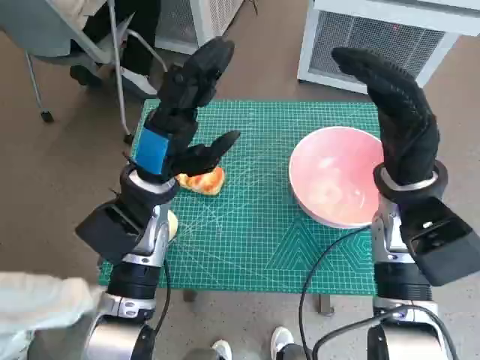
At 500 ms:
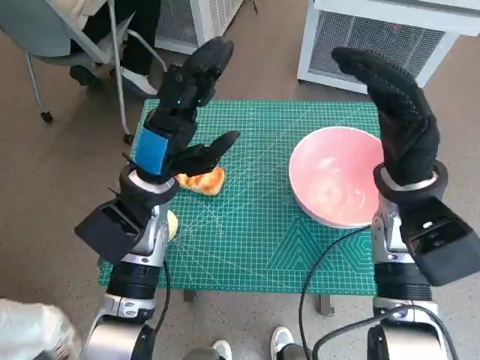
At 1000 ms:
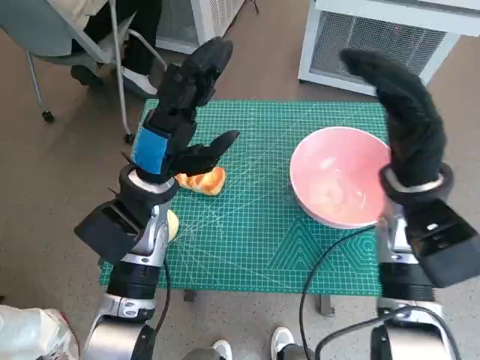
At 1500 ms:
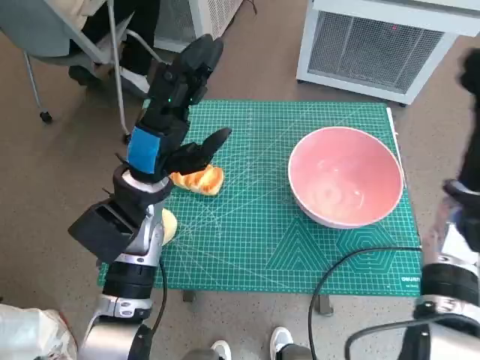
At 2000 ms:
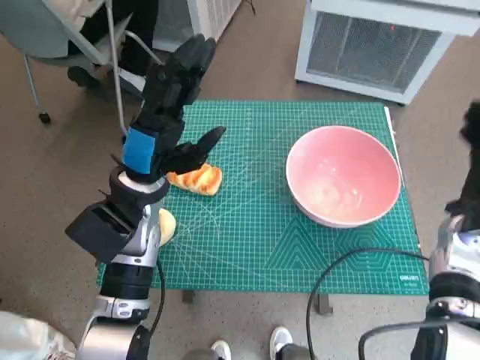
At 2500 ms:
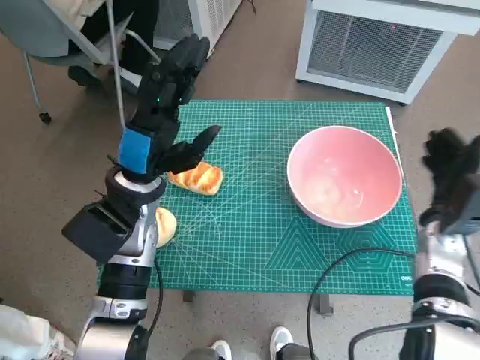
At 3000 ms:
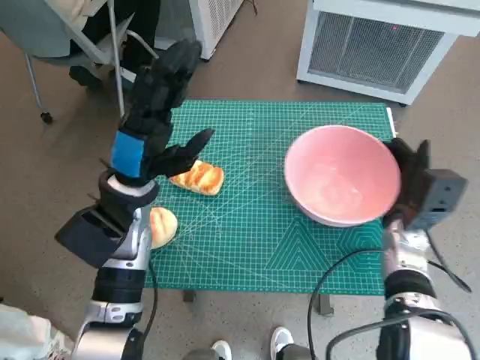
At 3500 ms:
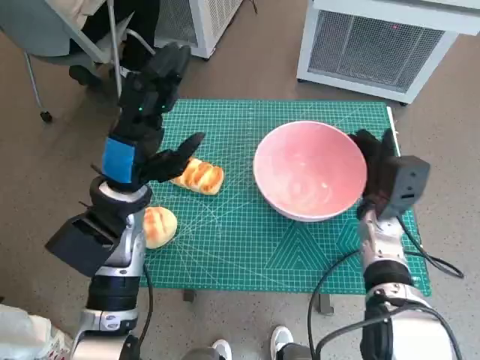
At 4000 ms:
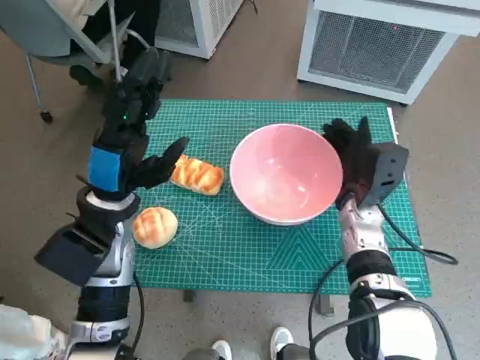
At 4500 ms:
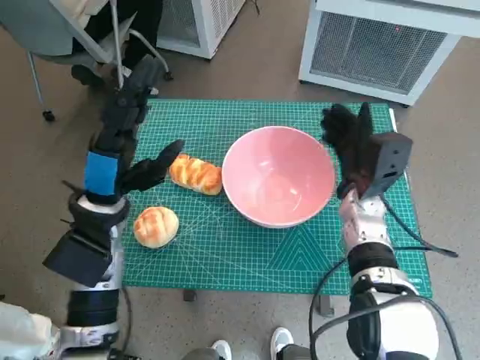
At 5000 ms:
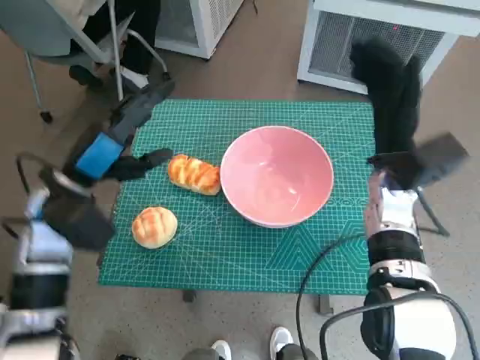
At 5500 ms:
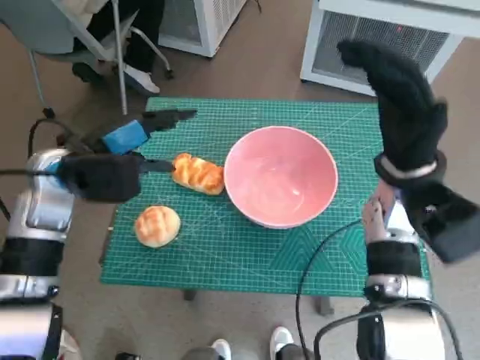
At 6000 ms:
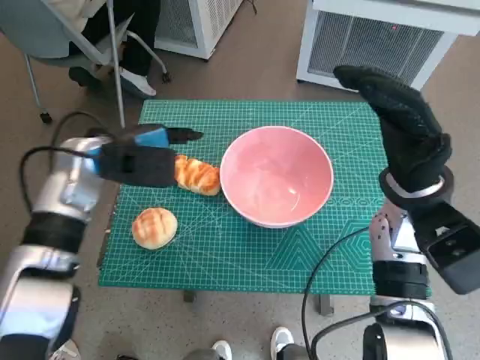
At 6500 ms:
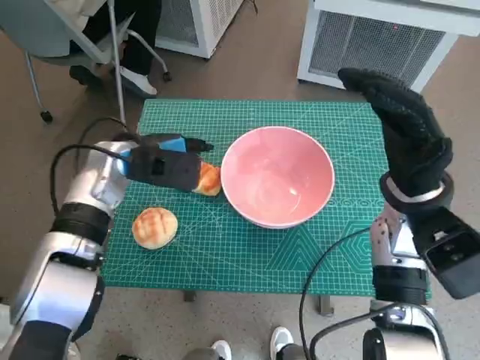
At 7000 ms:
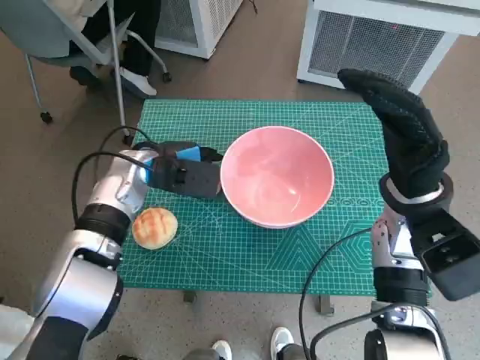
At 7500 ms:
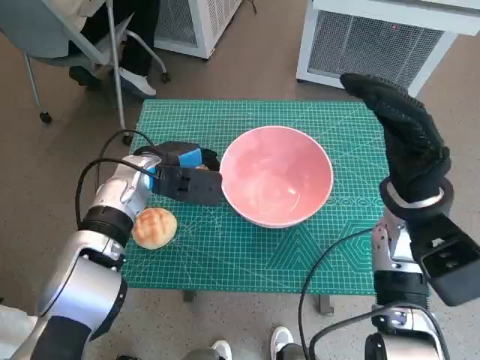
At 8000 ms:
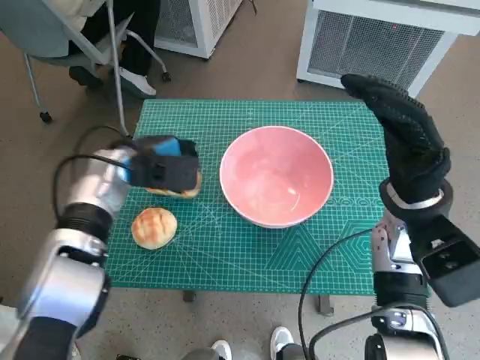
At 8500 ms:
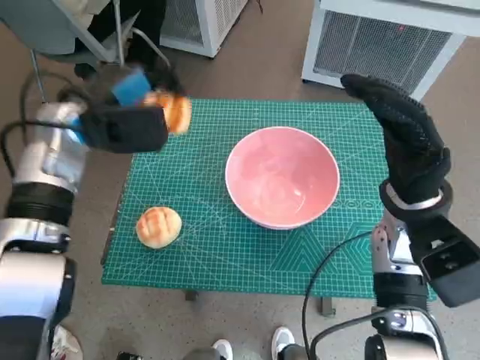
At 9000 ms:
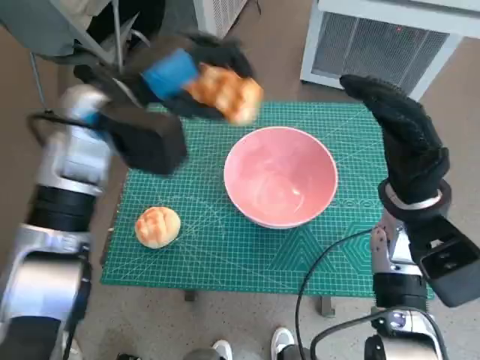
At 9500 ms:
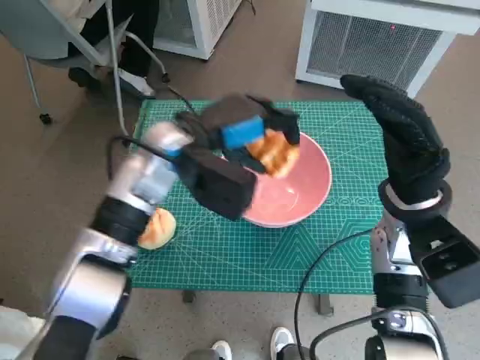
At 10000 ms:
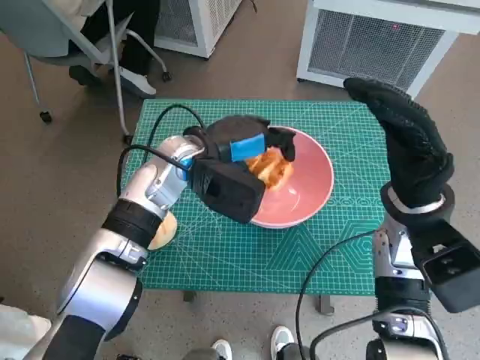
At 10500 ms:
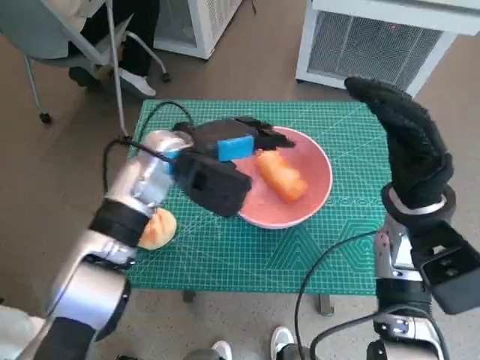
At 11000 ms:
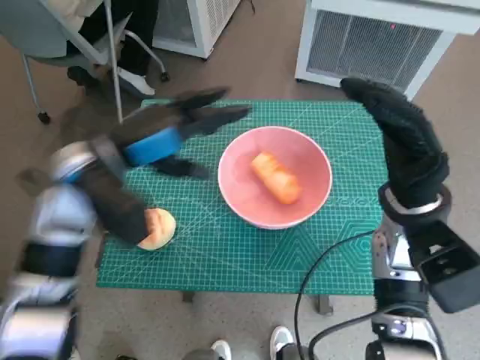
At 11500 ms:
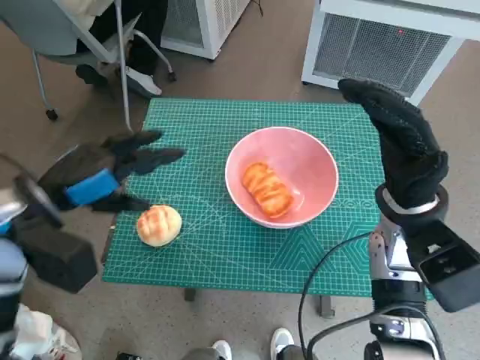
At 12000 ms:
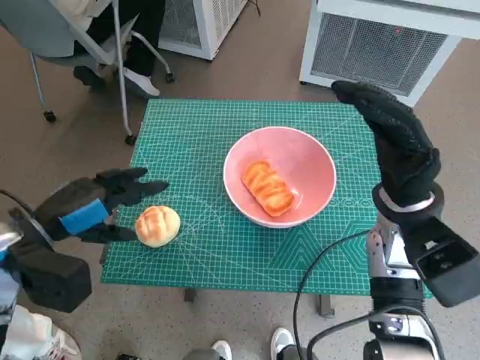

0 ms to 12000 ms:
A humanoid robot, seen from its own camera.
Task of the whole recording: Push the bowl to the center of the table and put the bread into the bowl.
Step, 0 ms to 4500 ms: Move the pink bowl to the center of table with right hand.
Step, 5000 ms to 7500 ms: Grasp the long bread with left hand.
Step, 8000 ms to 10000 ms: Place the long bread in pink bowl with left hand.
2000 ms to 4000 ms: The right hand is displaced to the left by some 15 cm.
4000 ms to 6000 ms: The left hand shifts roughly 5 cm forward. Meanwhile the right hand moves upward, about 10 cm.
6000 ms to 8000 ms: The left hand shifts by about 5 cm.
8000 ms to 10000 ms: The left hand goes some 10 cm to the right, and moves some 15 cm upward and comes back.
10000 ms to 12000 ms: The left hand is displaced to the left and backward by some 20 cm.

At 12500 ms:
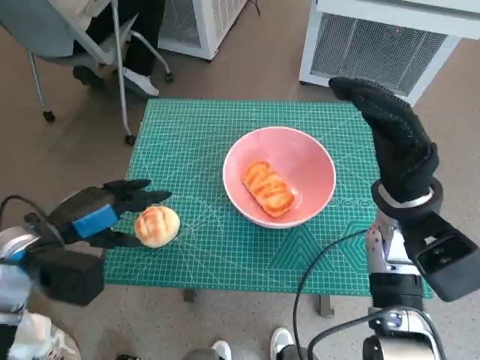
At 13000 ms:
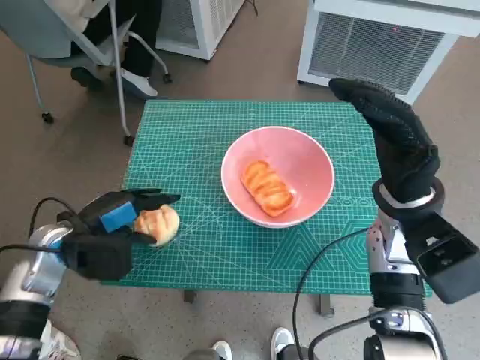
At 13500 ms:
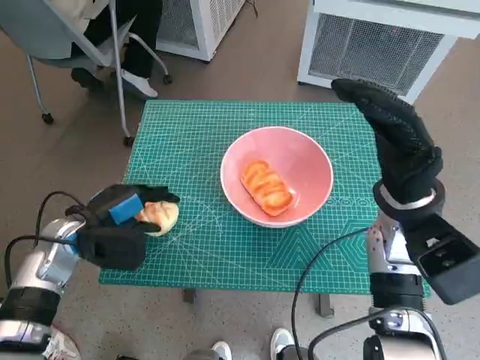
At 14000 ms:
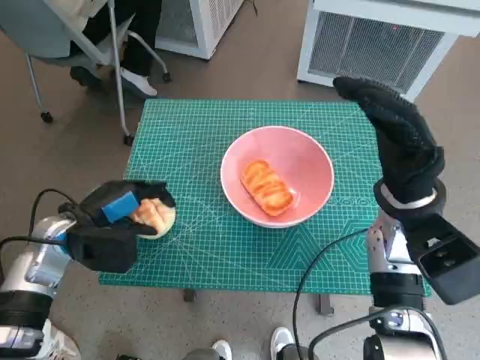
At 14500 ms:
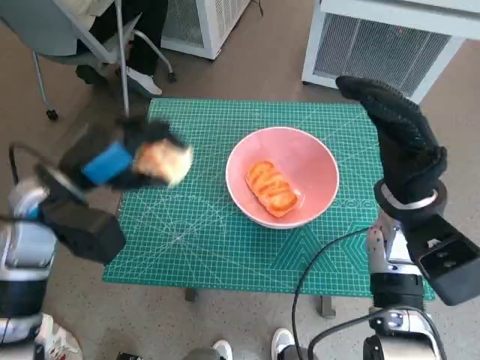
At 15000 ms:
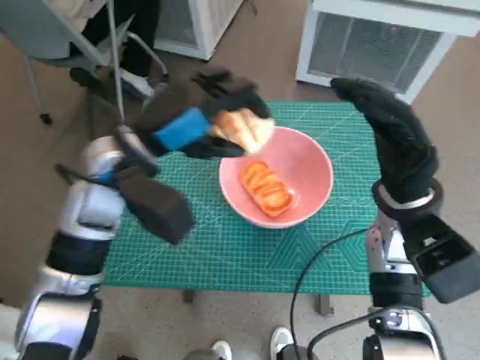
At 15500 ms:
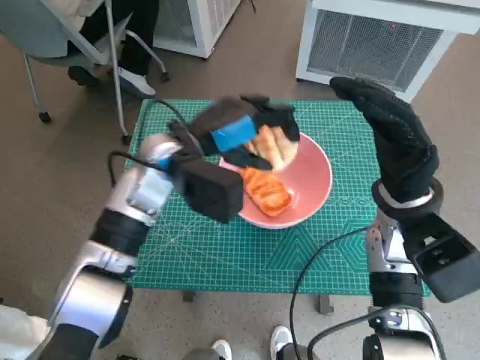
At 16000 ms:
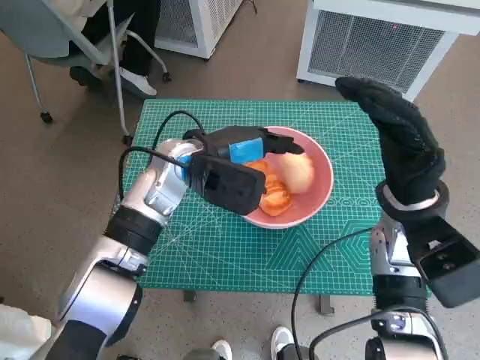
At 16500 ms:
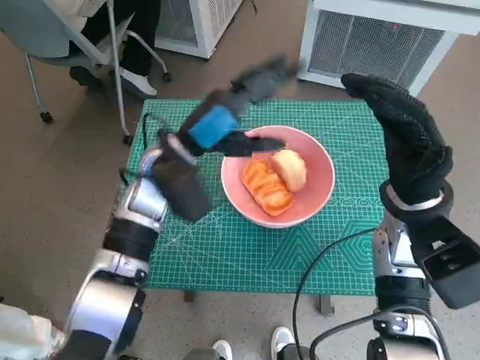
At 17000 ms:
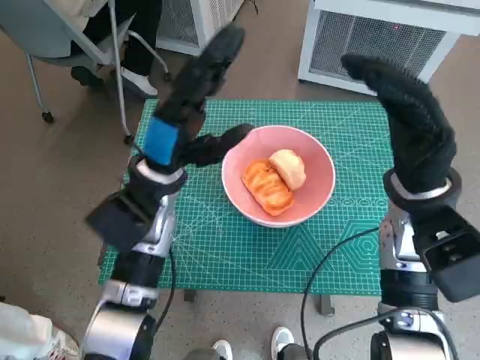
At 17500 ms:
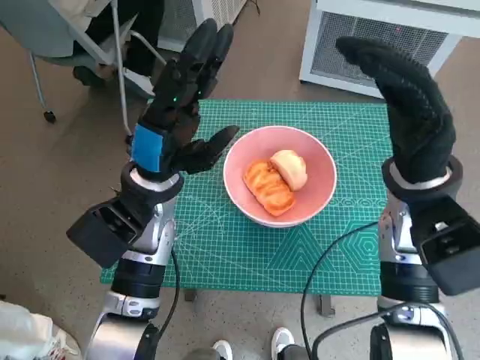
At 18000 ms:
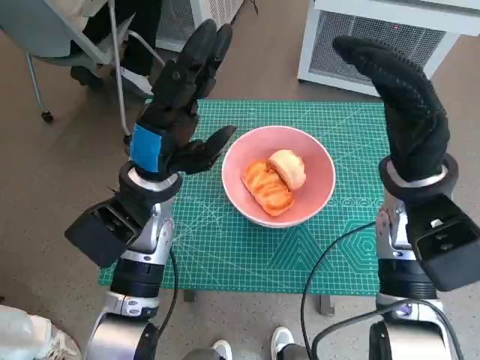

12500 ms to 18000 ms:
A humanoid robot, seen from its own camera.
Task of the whole recording: Push the bowl to the center of the table and put the bread into the bowl.
Step, 14000 ms to 16000 ms: Place the round bread in pink bowl with left hand.
12500 ms to 14500 ms: The left hand changes place by about 5 cm.
14500 ms to 16000 ms: The left hand moves to the right and forward, roughly 15 cm.
16000 ms to 18000 ms: The left hand heads backward, covering roughly 5 cm.

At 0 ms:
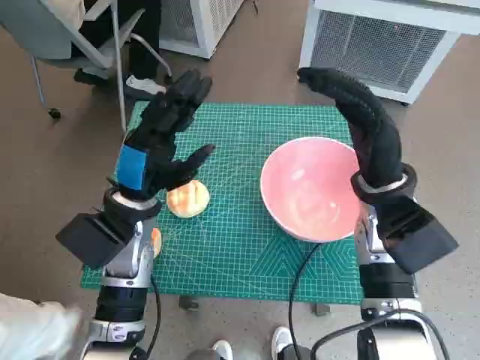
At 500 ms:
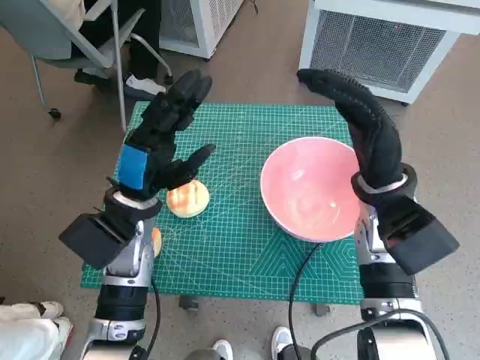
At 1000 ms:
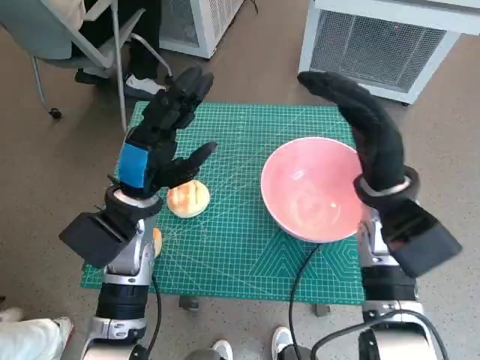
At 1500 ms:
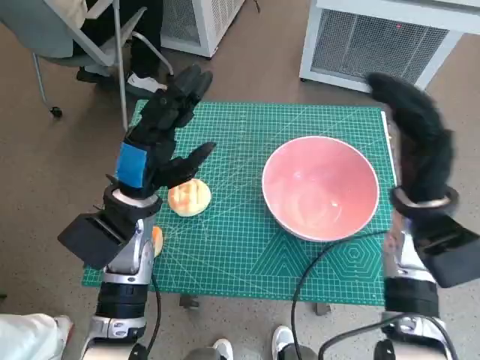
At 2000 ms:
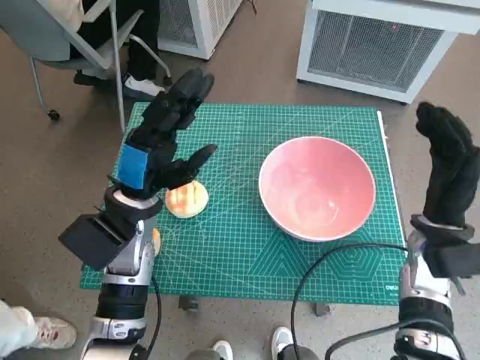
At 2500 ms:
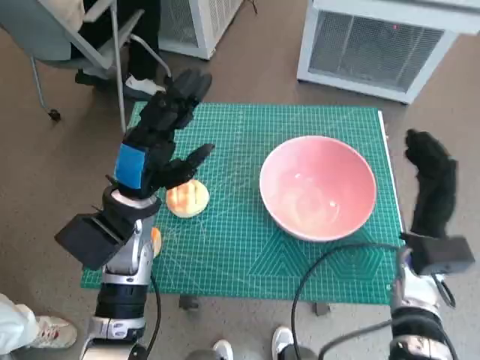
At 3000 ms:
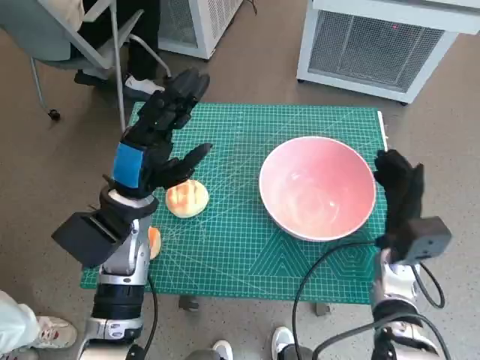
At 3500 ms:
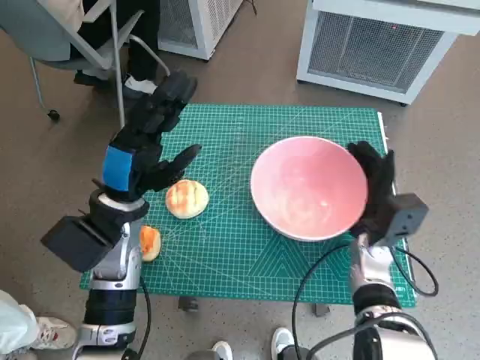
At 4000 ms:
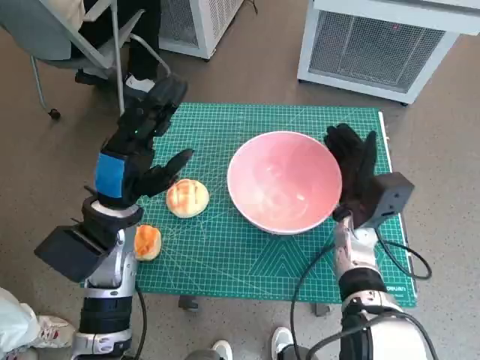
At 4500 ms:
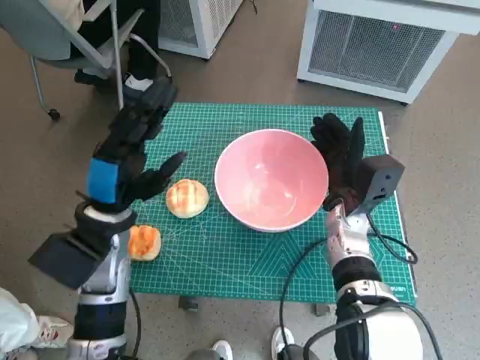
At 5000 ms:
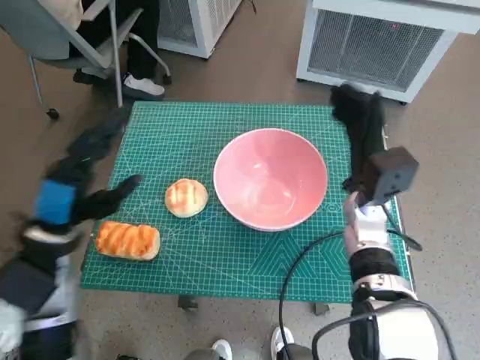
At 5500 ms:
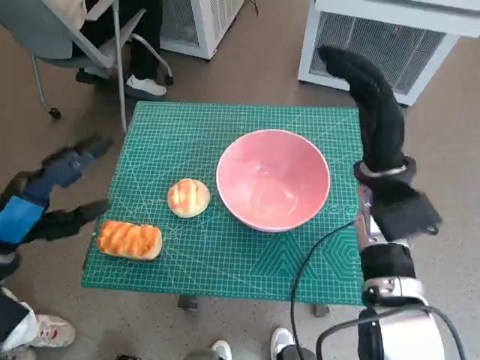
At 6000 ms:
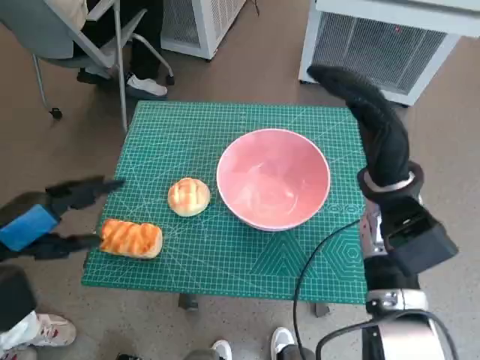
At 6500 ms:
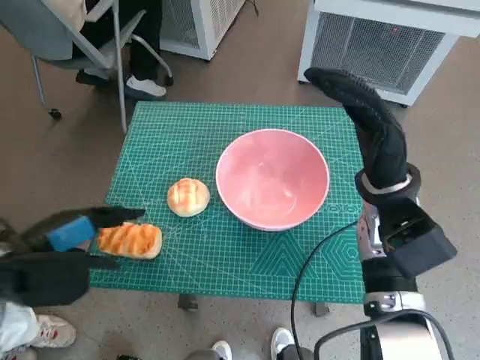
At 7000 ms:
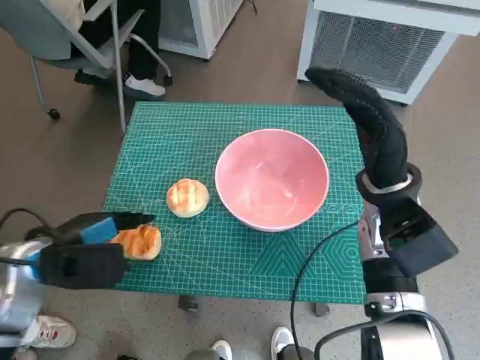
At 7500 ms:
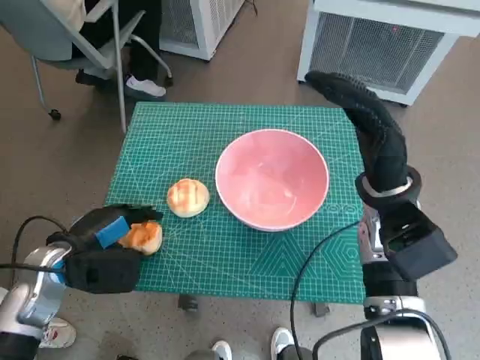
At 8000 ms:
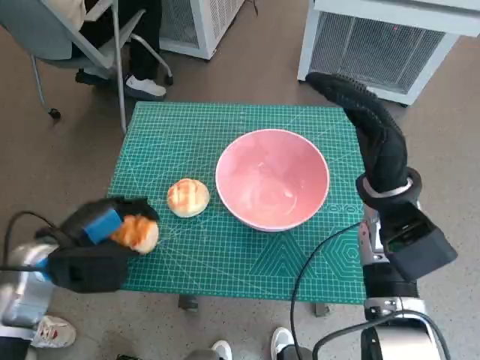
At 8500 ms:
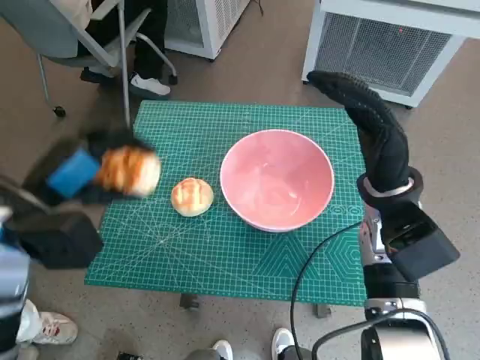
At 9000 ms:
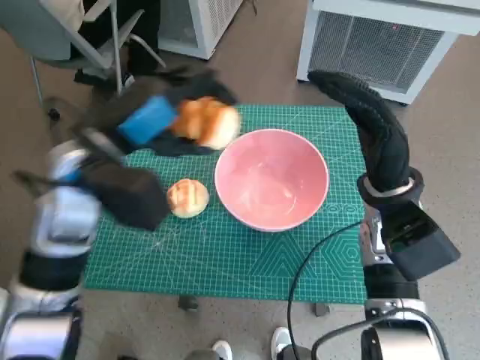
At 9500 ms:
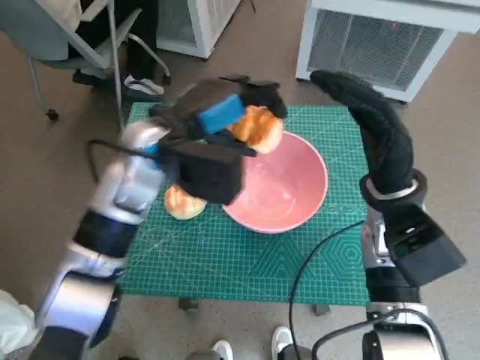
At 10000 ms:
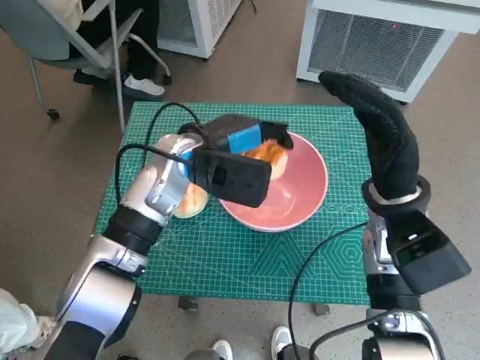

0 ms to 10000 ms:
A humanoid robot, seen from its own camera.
Task of the whole recording: Push the bowl to the center of the table and put the bread into the bowl.
Step, 0 ms to 4500 ms: Move the pink bowl to the center of table with right hand.
Step, 5000 ms to 7500 ms: Grasp the long bread with left hand.
2000 ms to 4000 ms: The right hand heads to the left and downward, covering about 10 cm.
4000 ms to 6000 ms: The left hand heads to the left, backward and upward, covering roughly 15 cm, while the right hand moves upward, some 10 cm.
6000 ms to 8000 ms: The left hand moves downward, approximately 10 cm.
8000 ms to 10000 ms: The left hand heads to the right, forward and upward, covering roughly 25 cm.
